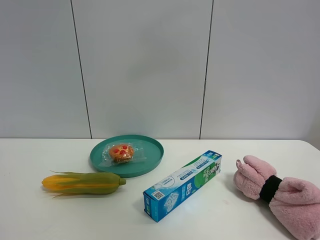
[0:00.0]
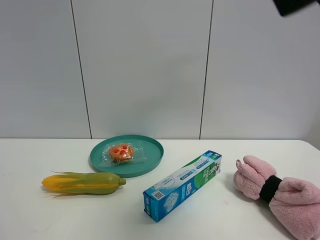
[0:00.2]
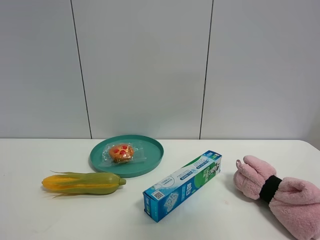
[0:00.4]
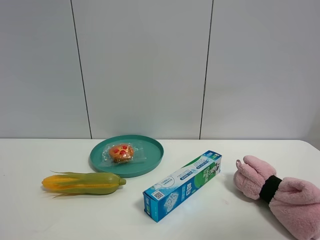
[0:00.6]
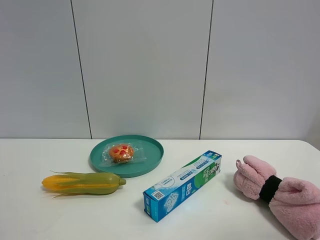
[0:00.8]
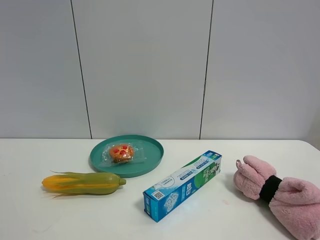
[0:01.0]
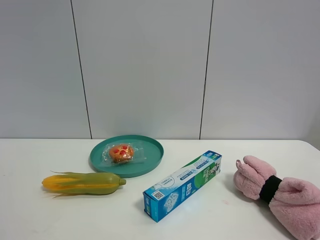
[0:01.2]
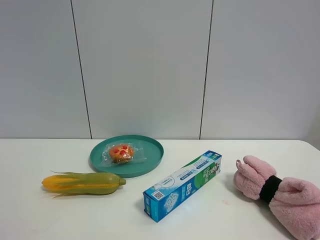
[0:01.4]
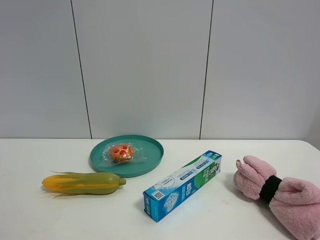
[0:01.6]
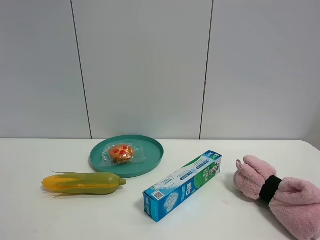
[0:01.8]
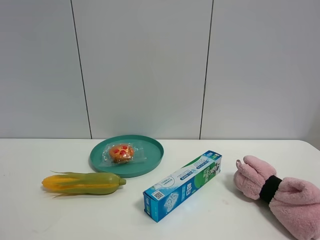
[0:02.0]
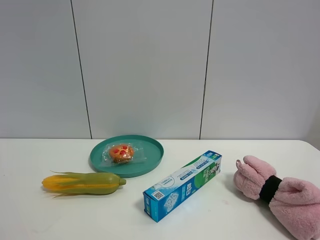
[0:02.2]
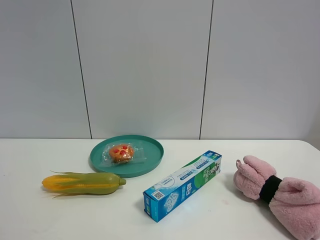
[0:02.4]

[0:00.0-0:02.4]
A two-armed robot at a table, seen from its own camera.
Task of the whole recording: the gripper move the object.
0:00.0 to 0:01.2: The right gripper moves backward, to the right and downward, about 30 cm.
